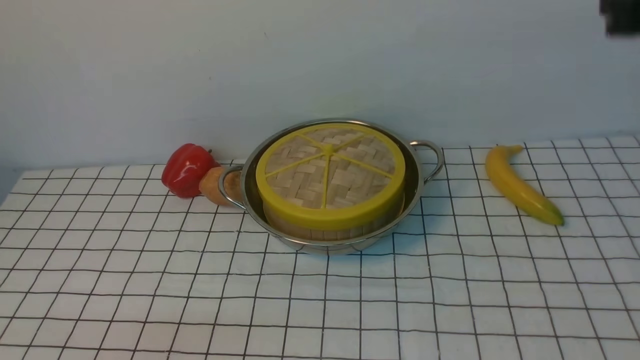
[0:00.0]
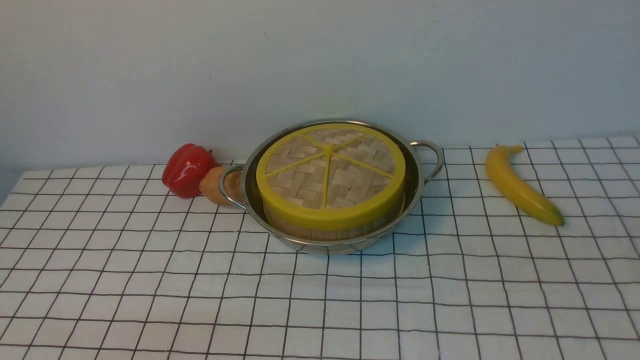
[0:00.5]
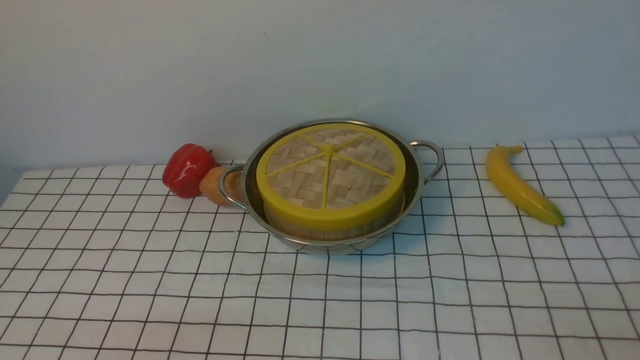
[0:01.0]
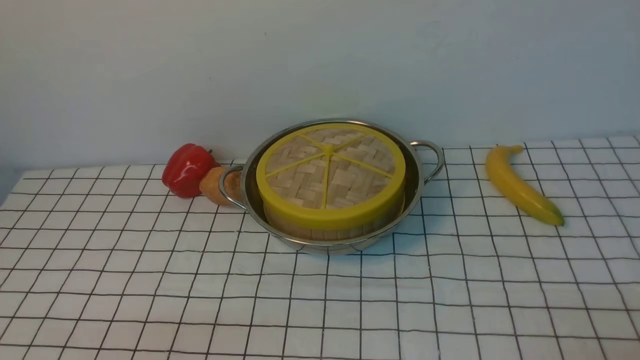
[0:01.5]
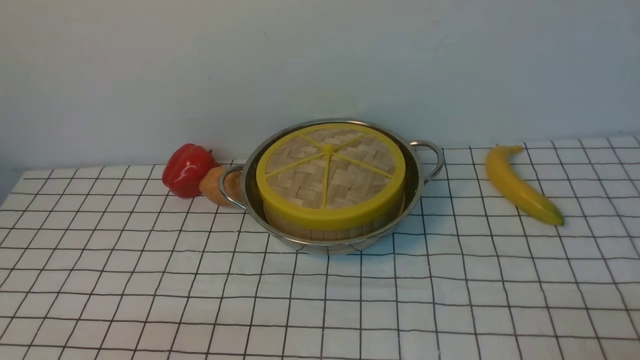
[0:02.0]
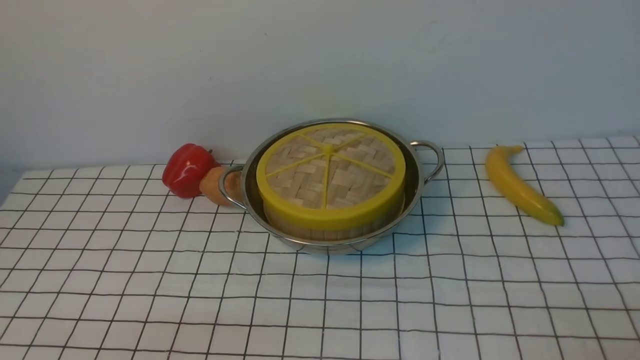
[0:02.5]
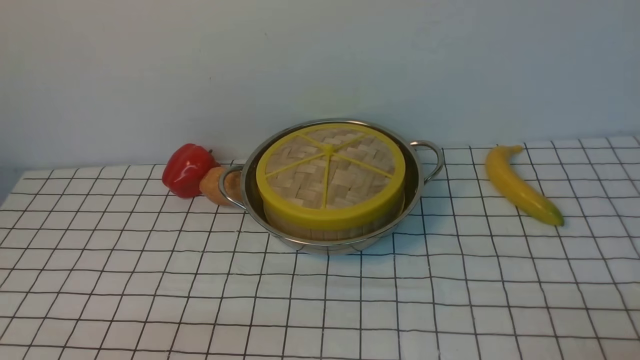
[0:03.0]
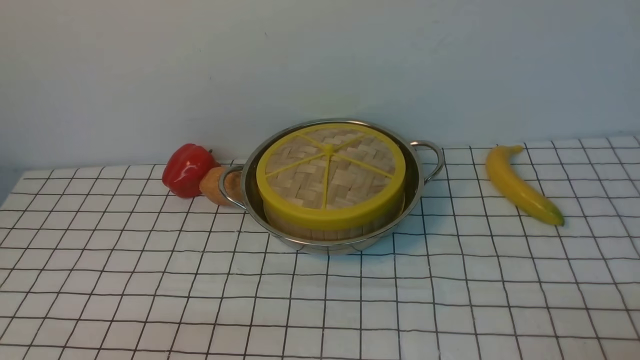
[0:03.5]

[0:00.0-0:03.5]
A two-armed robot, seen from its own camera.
Task of the whole recording: place the steamer in the pot on the white tablecloth, and put the lid on the steamer.
0:02.0 to 0:03.5: Both grippers stay put.

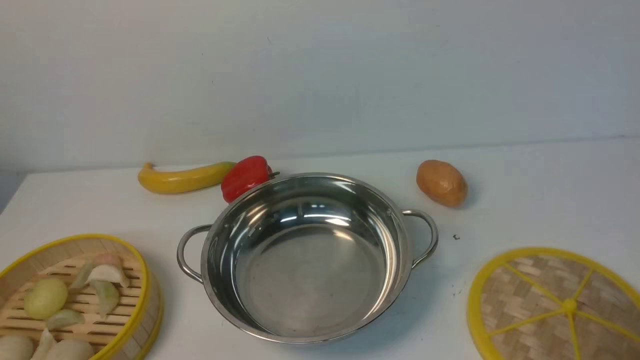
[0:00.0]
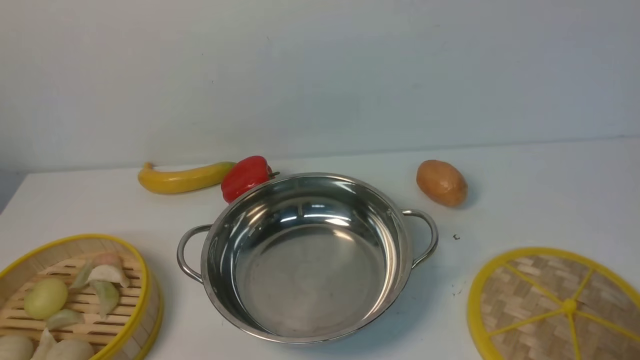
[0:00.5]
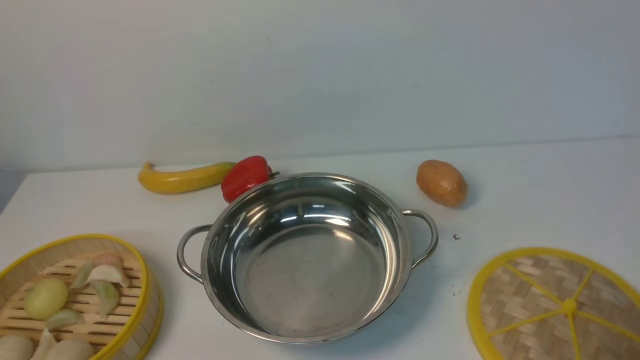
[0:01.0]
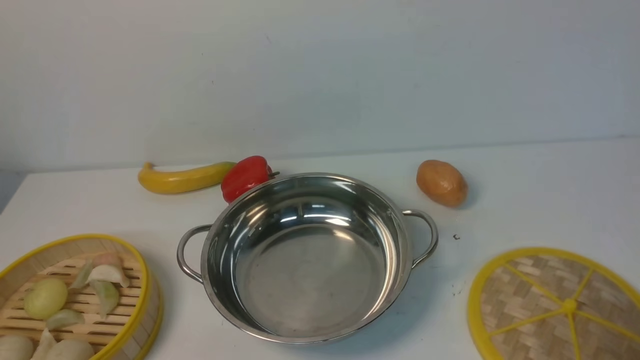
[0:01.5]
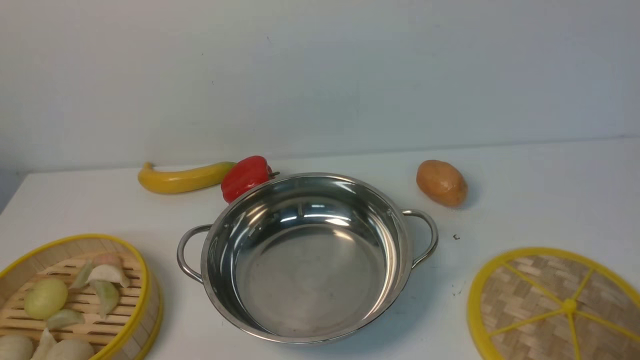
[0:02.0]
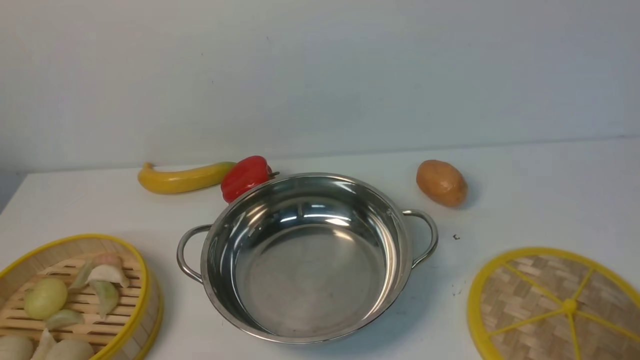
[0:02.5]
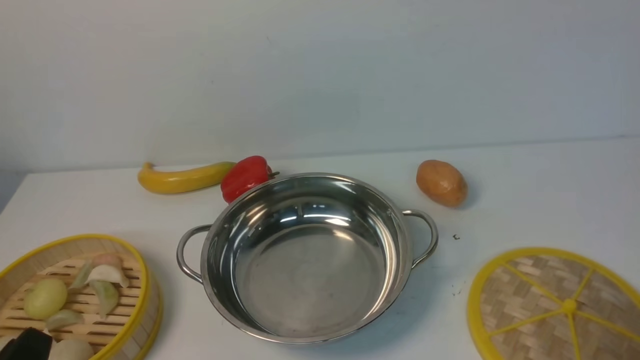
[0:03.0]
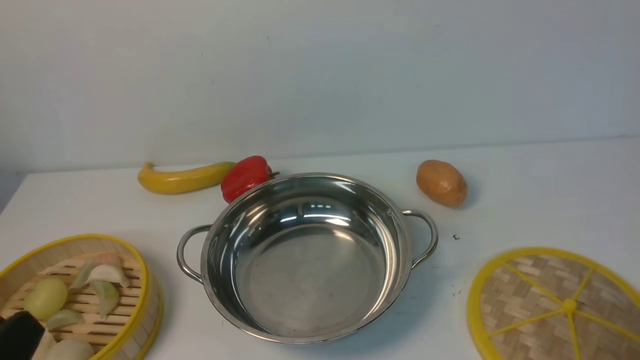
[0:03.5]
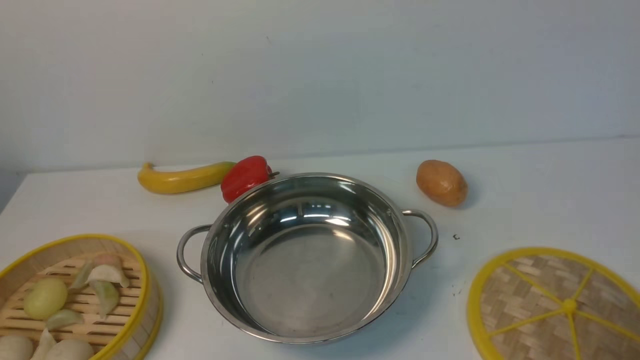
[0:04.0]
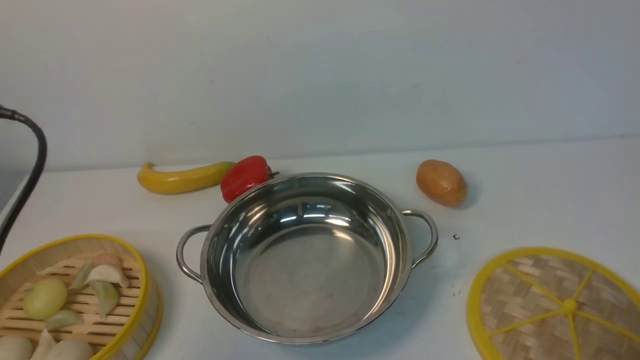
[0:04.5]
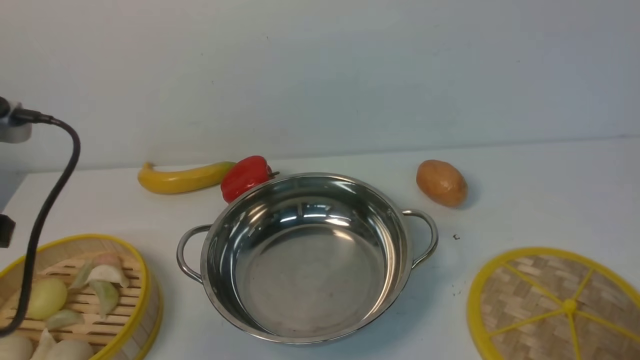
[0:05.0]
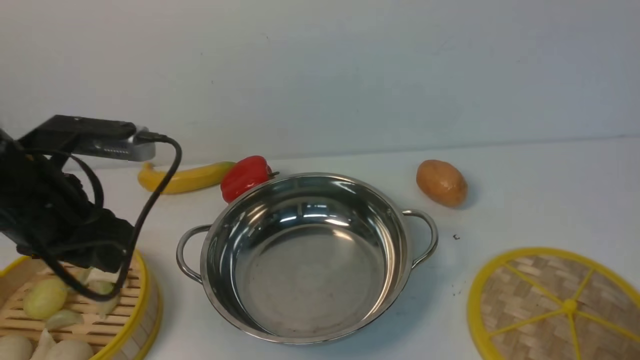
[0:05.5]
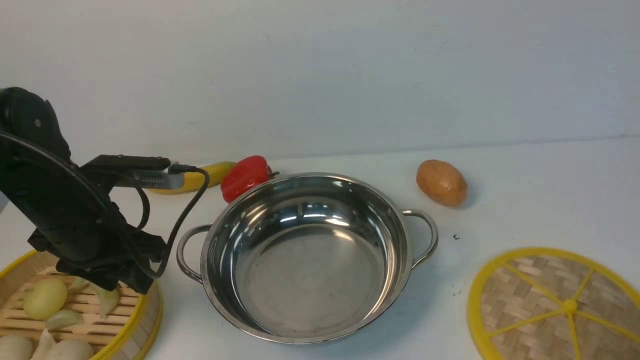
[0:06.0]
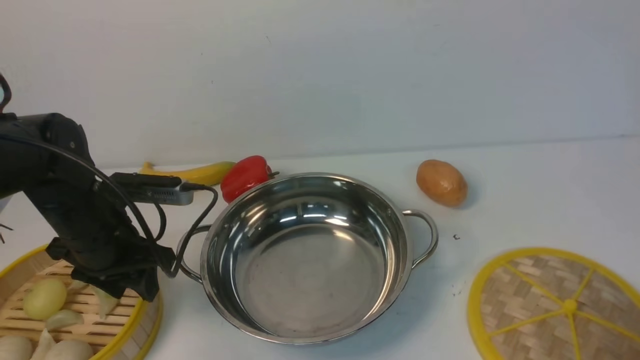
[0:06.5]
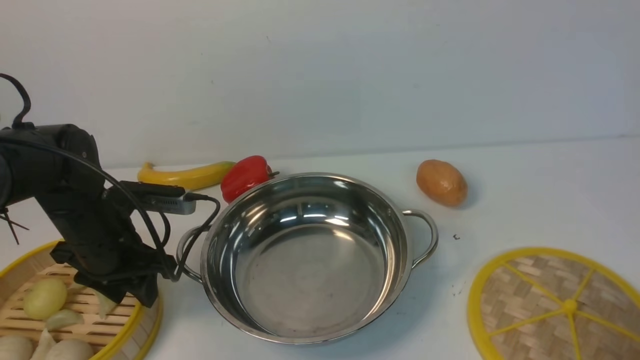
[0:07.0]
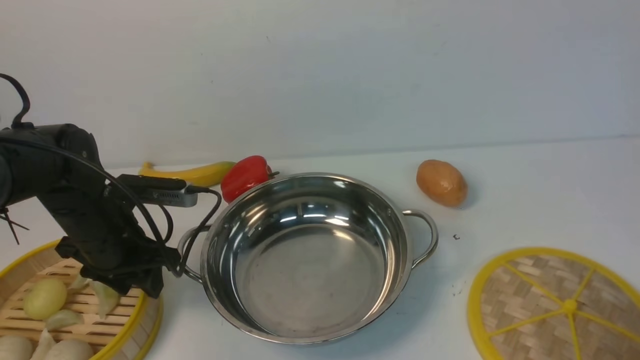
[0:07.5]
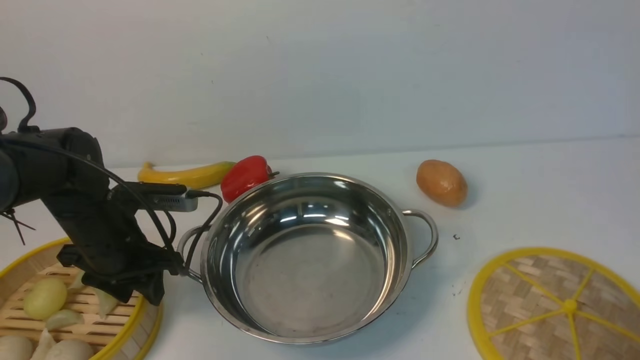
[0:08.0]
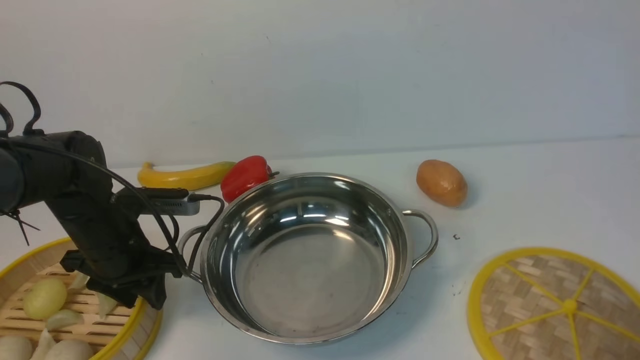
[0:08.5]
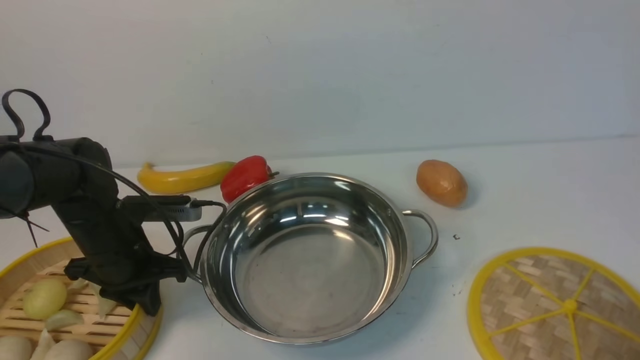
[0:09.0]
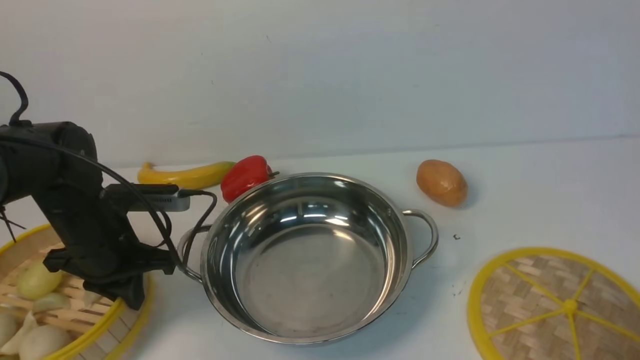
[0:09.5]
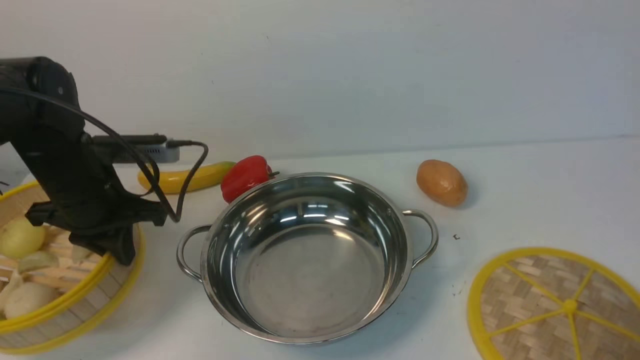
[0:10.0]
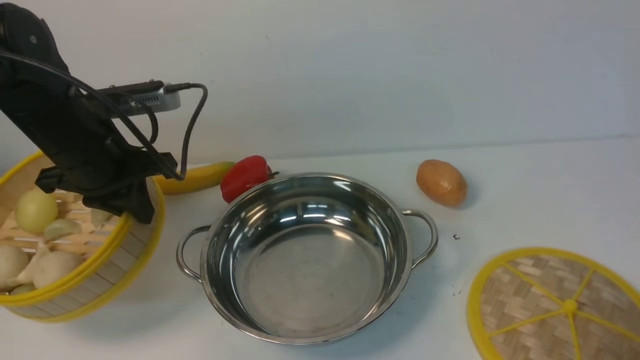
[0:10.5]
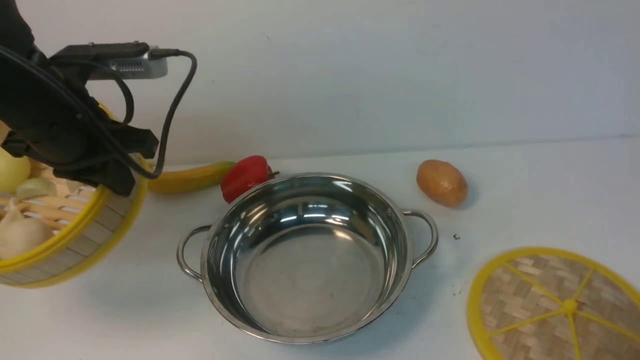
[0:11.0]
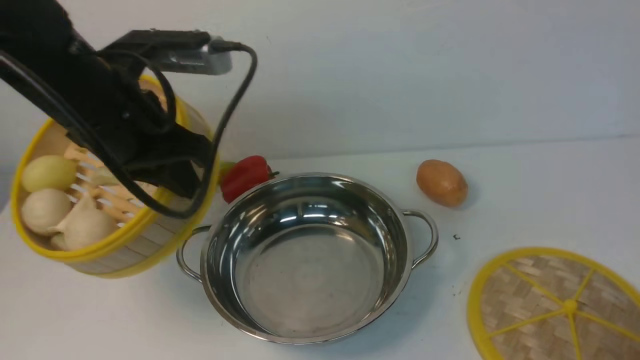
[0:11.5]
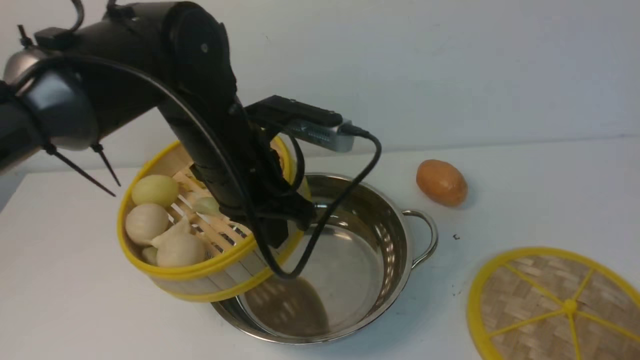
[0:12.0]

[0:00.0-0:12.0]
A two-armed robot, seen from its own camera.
Task of the whole recording: place the steamer in the pot on the white table, and put the lid on the steamer.
Step, 0:00.0 to 0:09.5: use the left arm to lift the steamer closest to it.
0:00.0 to 0:02.0: Neither gripper changes place.
0:04.0 to 0:06.0: The left gripper travels forward and downward by approximately 25 cm.
0:06.0 to 0:08.0: The left gripper moves downward, some 5 cm.
0:08.0 to 0:10.0: The left gripper moves upward, some 10 cm, and closes its fingers.
0:10.0 to 0:12.0: The left gripper shifts some 15 cm to the right.

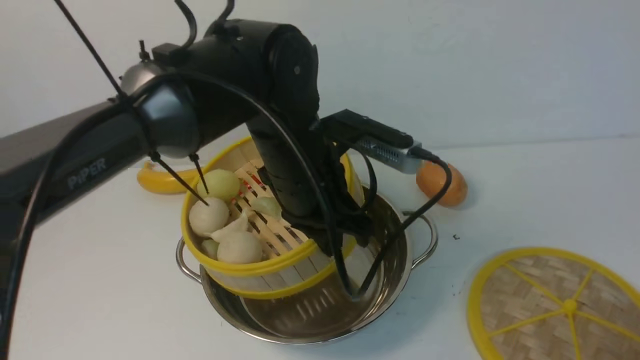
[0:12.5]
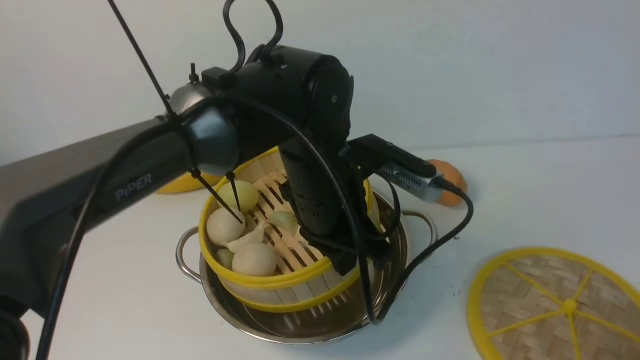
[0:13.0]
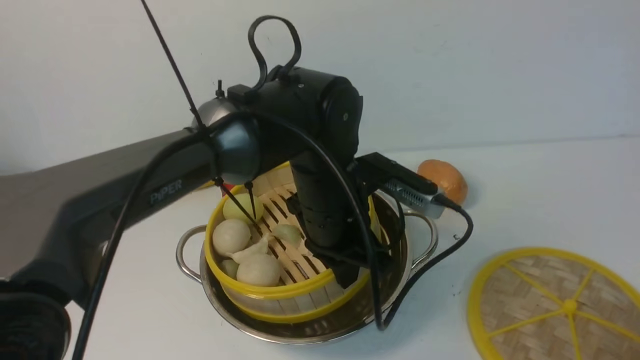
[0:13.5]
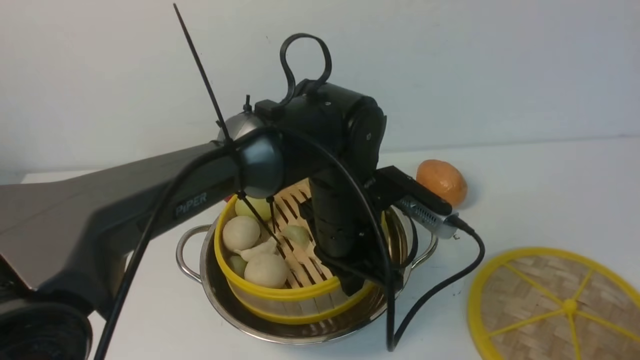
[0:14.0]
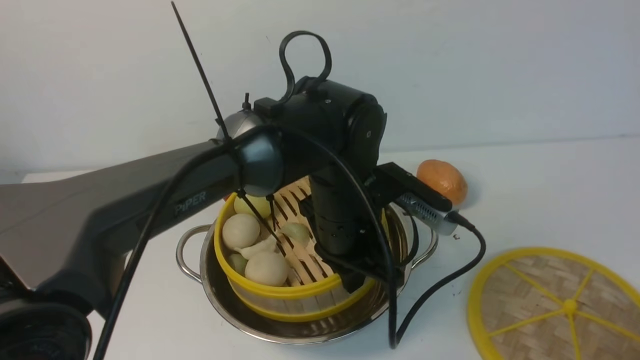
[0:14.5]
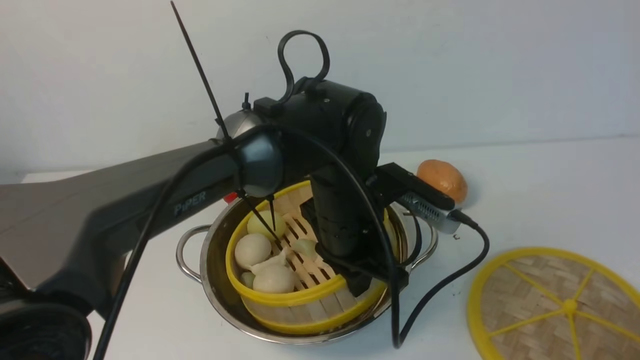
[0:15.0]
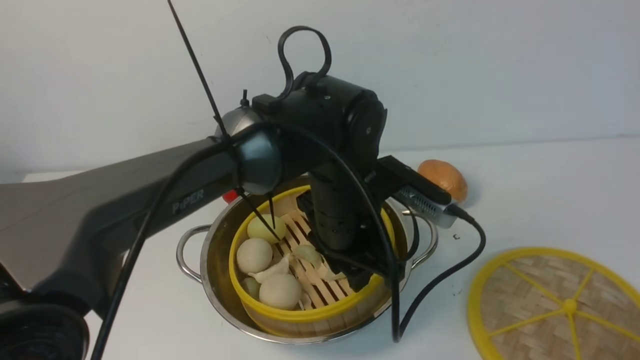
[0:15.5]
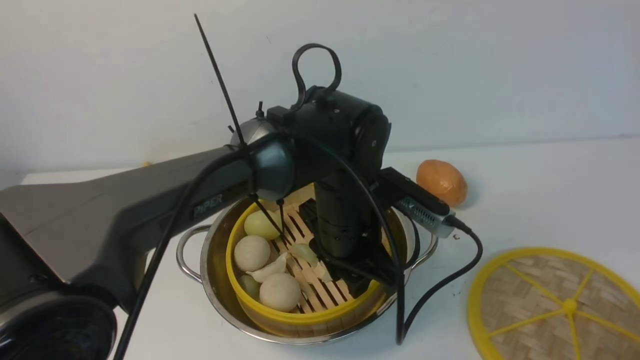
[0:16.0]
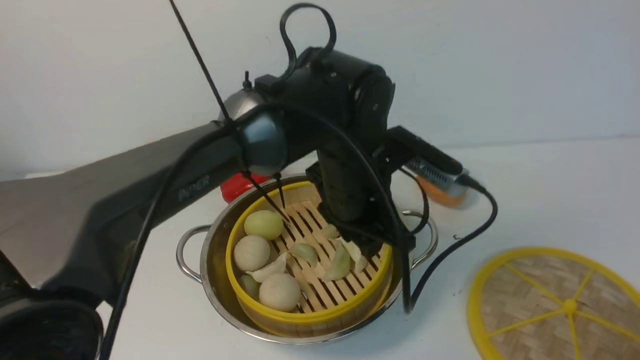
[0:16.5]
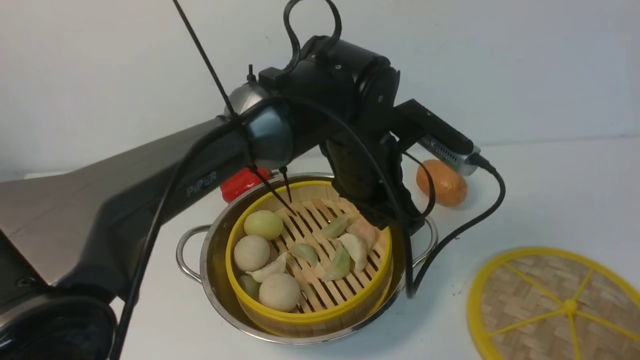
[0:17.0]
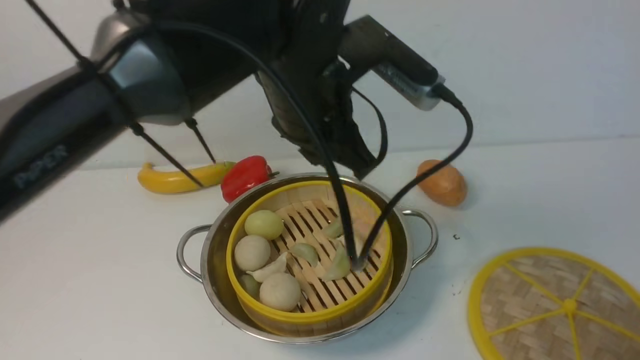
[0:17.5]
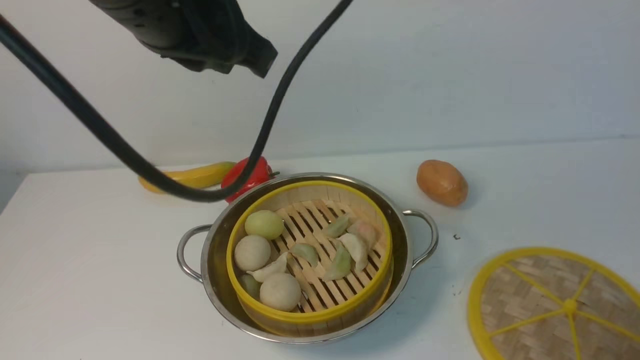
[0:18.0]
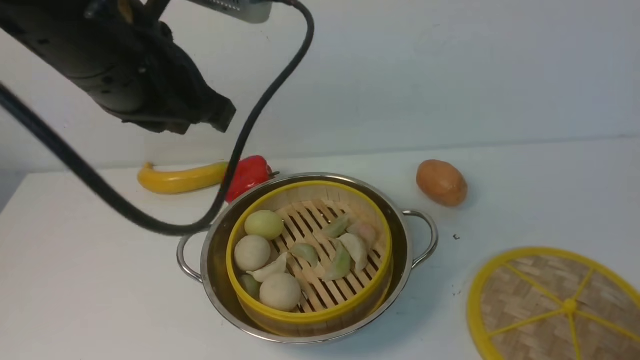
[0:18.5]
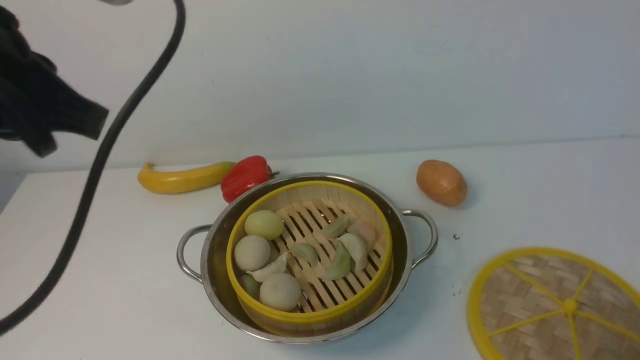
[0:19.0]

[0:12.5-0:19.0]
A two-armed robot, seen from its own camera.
Task of the whole recording: place the steamer in the pot on the white table, and put the lid on the steamer.
Step, 0:12.5 to 0:17.5: use the left arm to put the steamer into the iron steamer pot in the middle.
0:12.5 to 0:14.5: The left gripper travels downward by some 5 cm.
0:14.5 to 0:17.0: The left gripper moves some 5 cm, and opens.
0:17.0 to 0:19.0: The left gripper travels to the left, upward and backward by about 30 cm, and closes.
